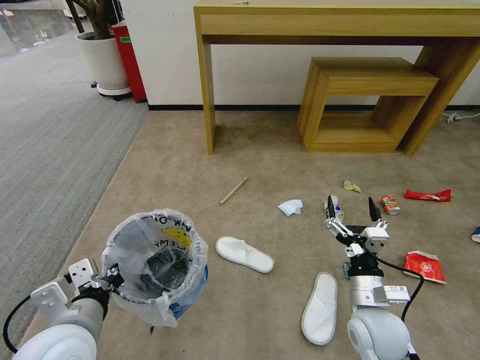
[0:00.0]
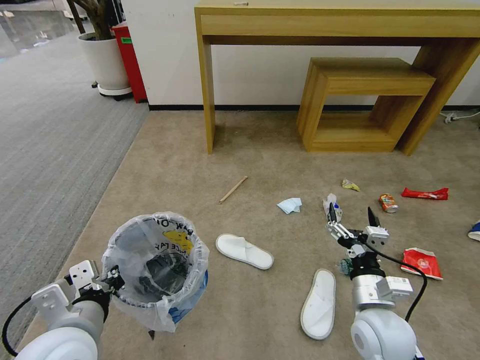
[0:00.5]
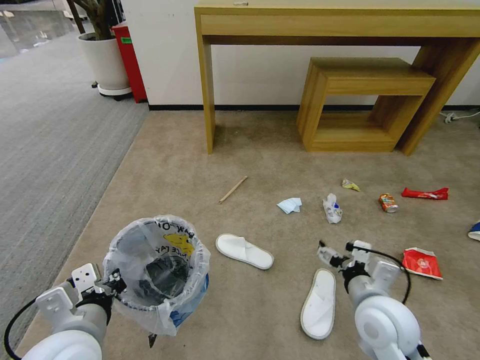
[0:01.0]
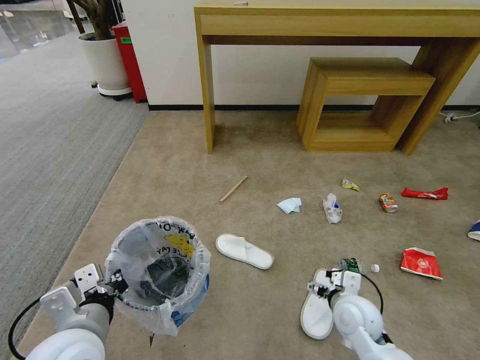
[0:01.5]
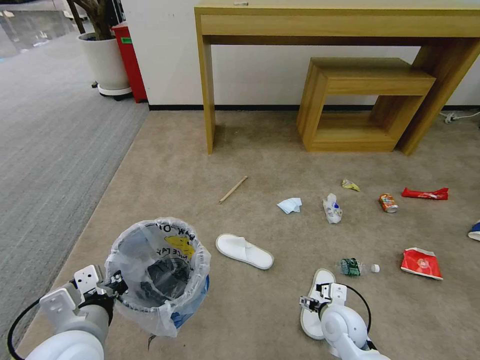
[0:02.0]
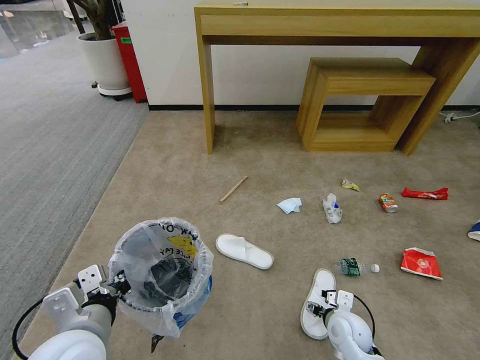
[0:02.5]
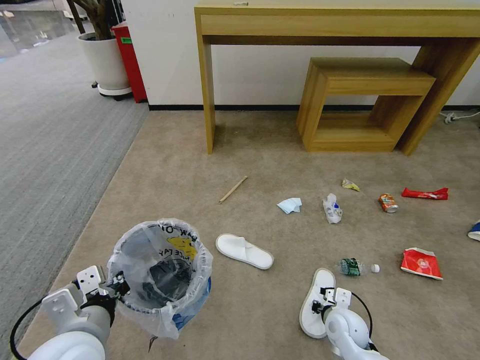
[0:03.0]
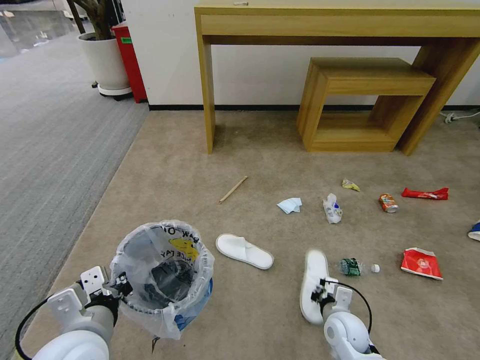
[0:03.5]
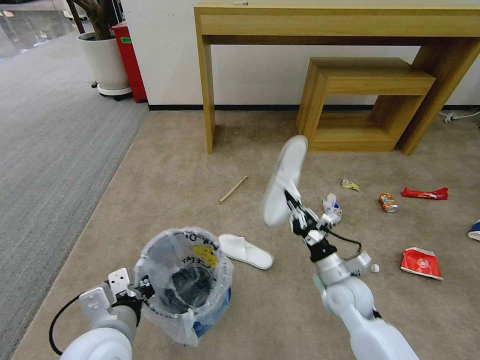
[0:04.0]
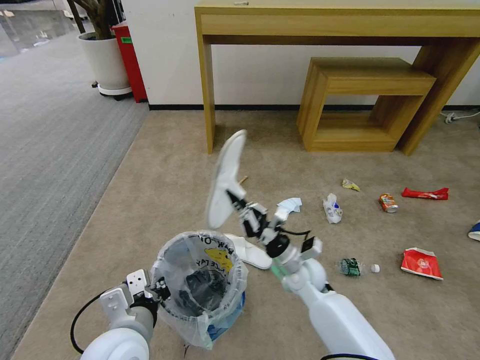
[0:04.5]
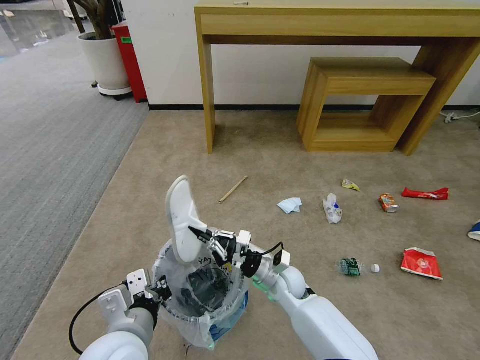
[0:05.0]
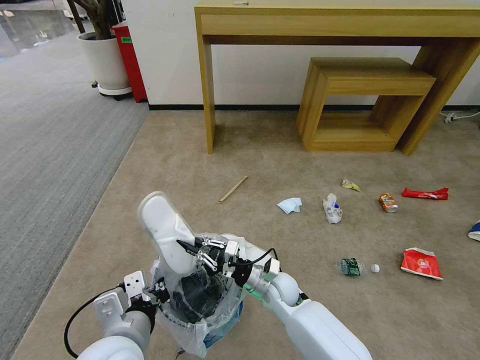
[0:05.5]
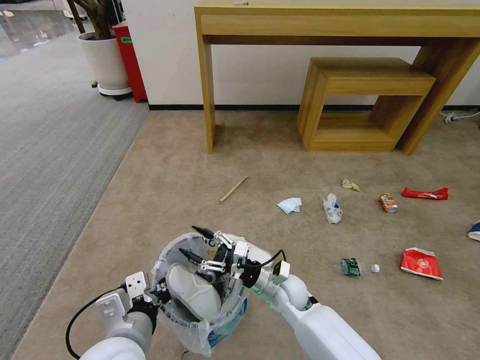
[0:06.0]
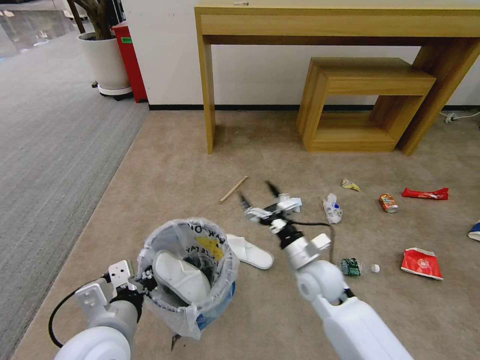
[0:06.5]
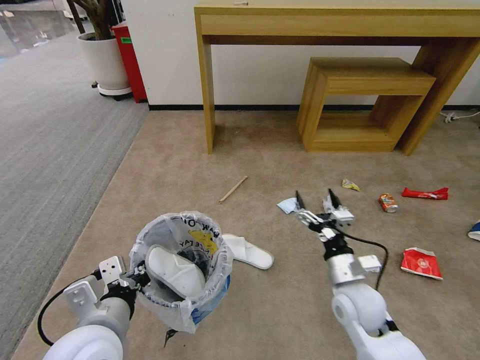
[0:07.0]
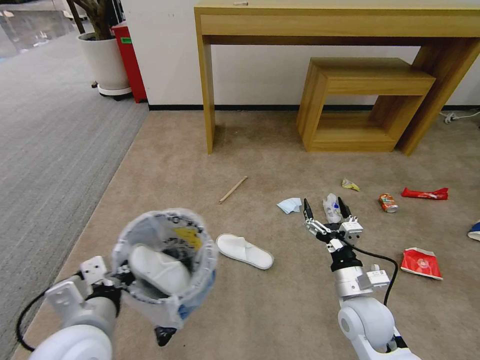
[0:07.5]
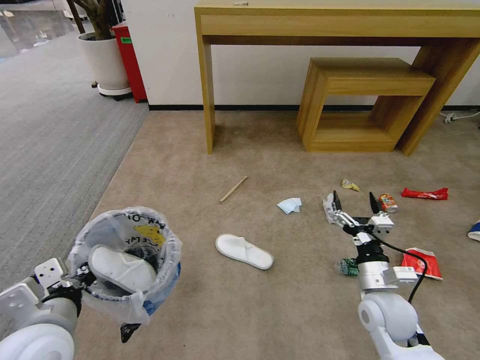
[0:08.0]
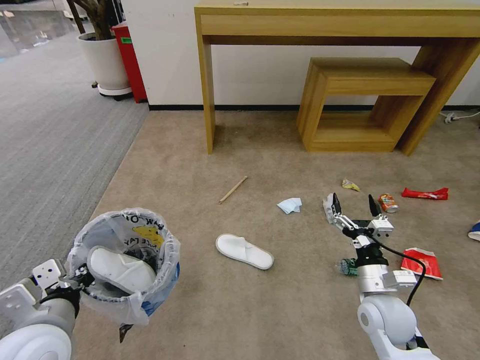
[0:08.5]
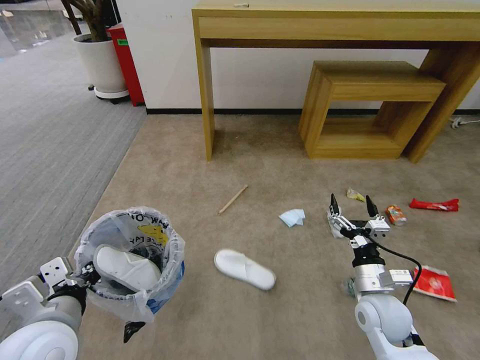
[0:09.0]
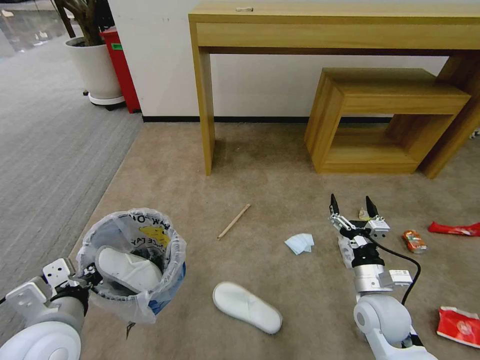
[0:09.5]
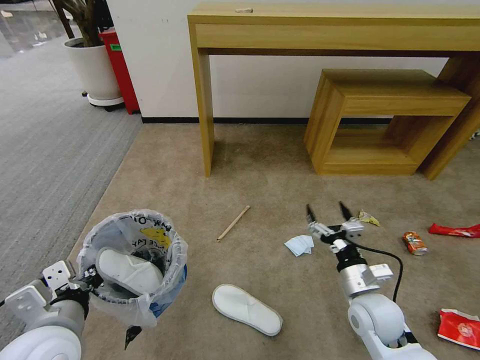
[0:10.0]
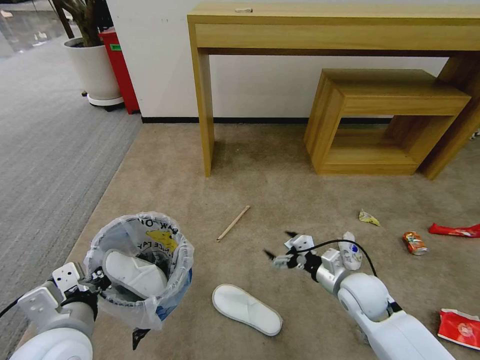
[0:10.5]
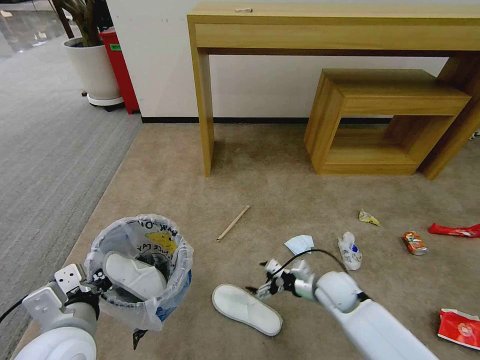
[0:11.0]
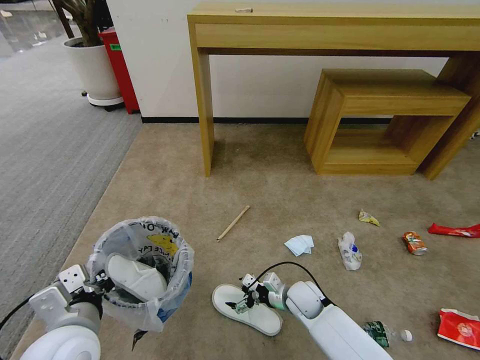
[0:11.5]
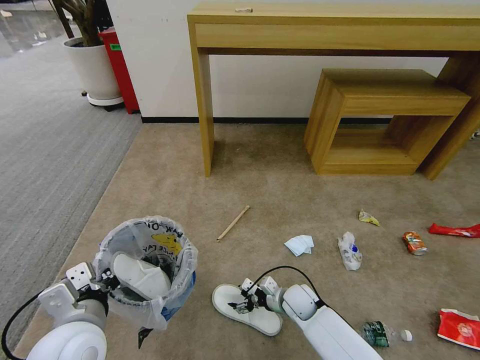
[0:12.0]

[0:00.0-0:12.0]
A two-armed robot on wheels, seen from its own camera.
Task of the whole recording: Pick up the trash bin and place the garbage on the floor into it.
0:00.0 to 0:02.0: The right gripper goes roughly 10 cm downward.
0:02.0 to 0:04.0: The right gripper is displaced upward by roughly 5 cm, and closes its fingers.
0:04.0 to 0:06.0: The right gripper heads to the left, covering some 15 cm, and opens up.
0:06.0 to 0:08.0: The left gripper heads to the left, covering approximately 10 cm. Meanwhile the right gripper moves to the right, upward and backward, about 20 cm.
0:10.0 to 0:12.0: The right gripper travels downward, to the left and forward by some 20 cm.

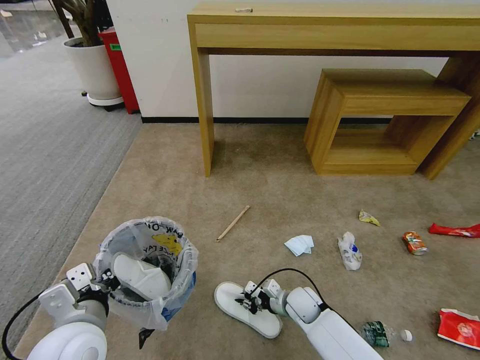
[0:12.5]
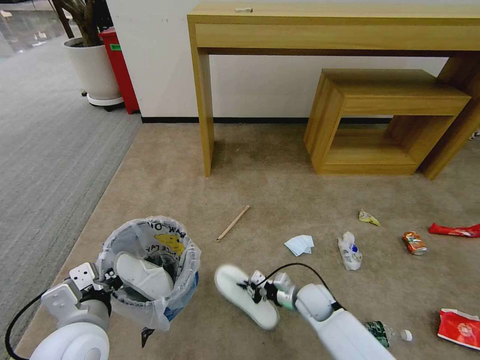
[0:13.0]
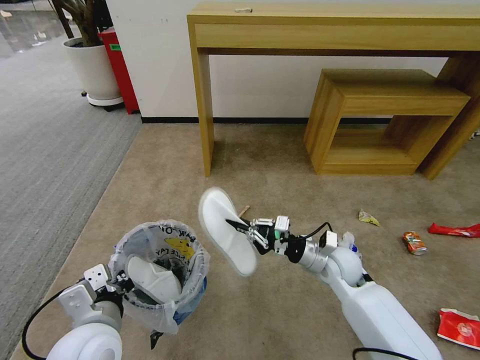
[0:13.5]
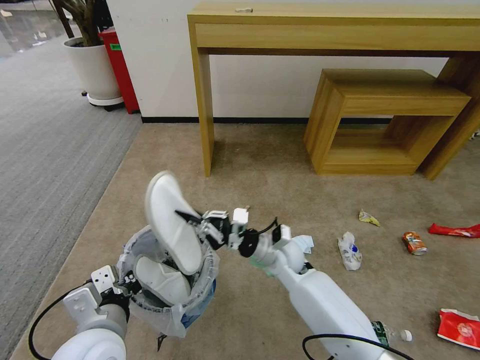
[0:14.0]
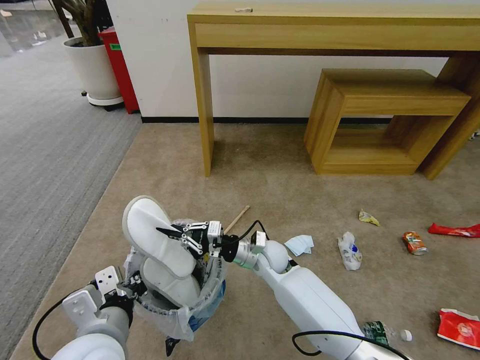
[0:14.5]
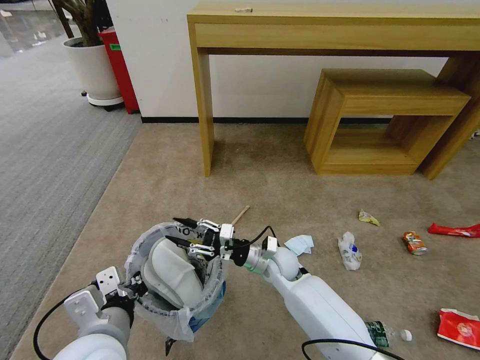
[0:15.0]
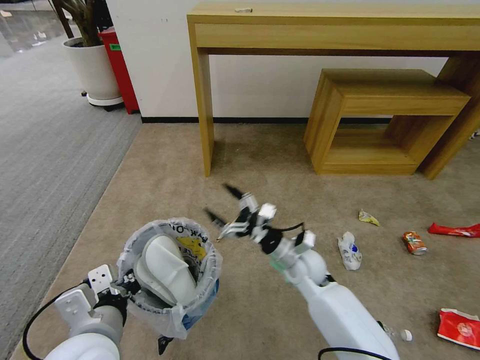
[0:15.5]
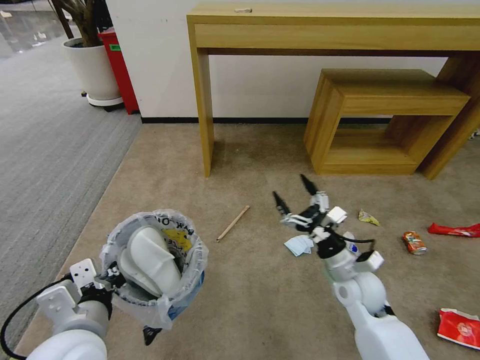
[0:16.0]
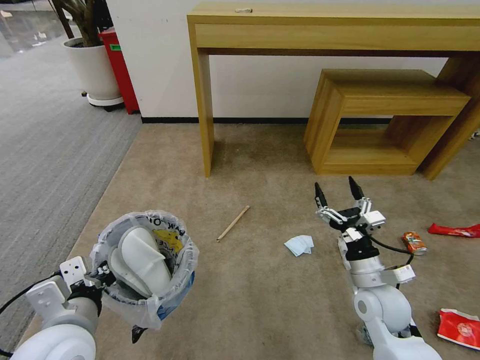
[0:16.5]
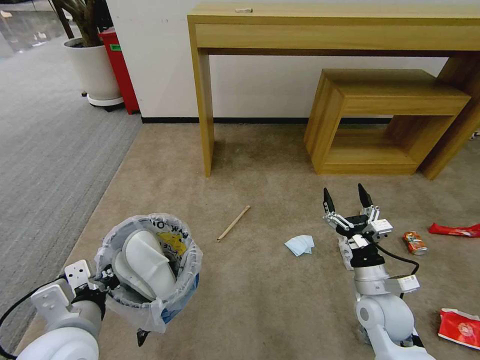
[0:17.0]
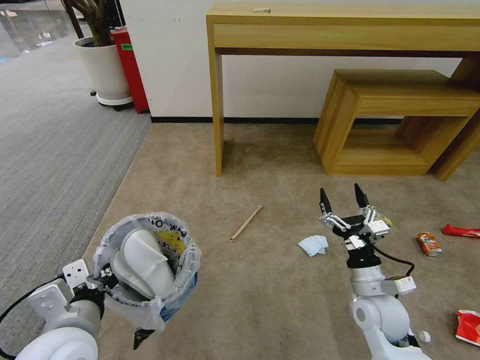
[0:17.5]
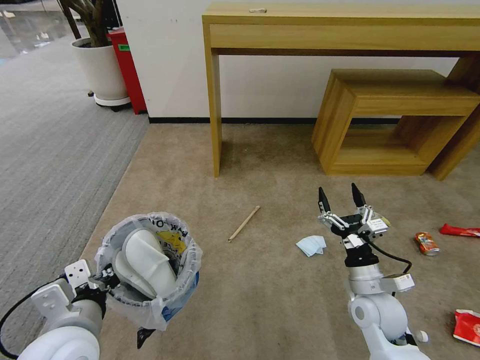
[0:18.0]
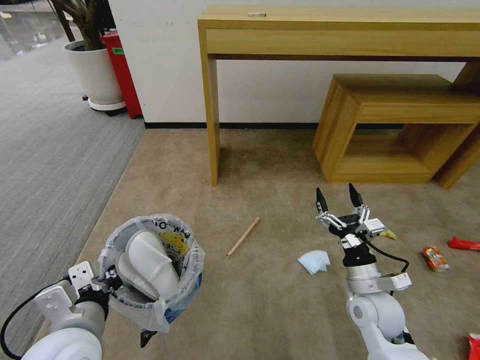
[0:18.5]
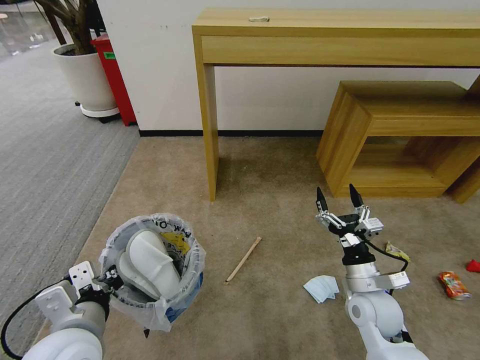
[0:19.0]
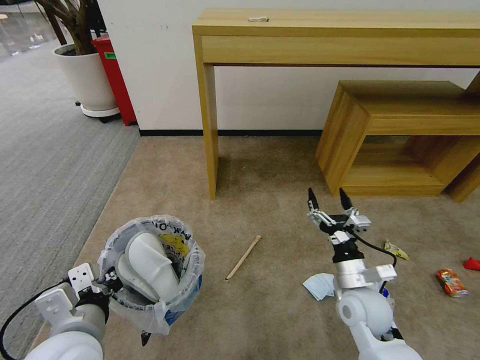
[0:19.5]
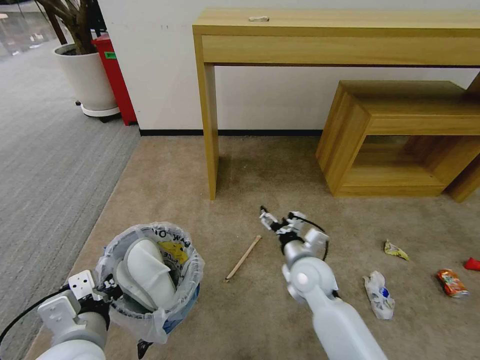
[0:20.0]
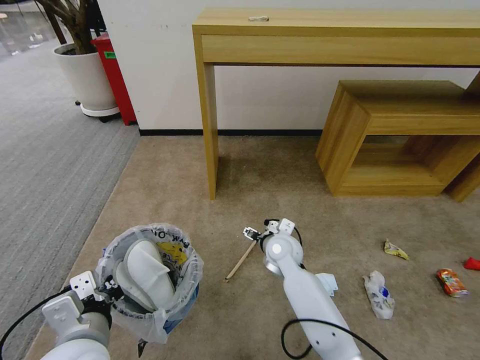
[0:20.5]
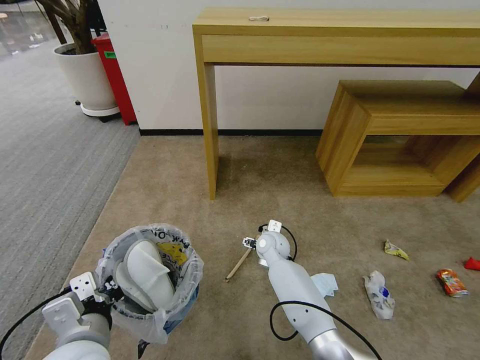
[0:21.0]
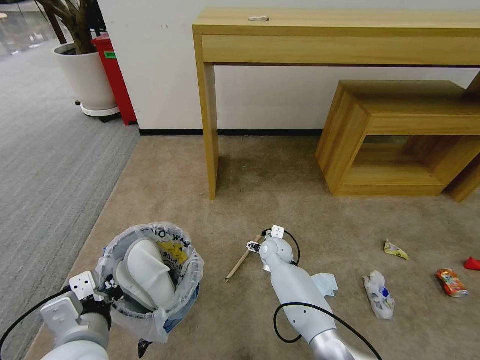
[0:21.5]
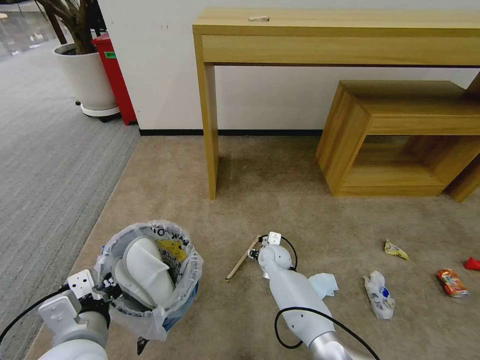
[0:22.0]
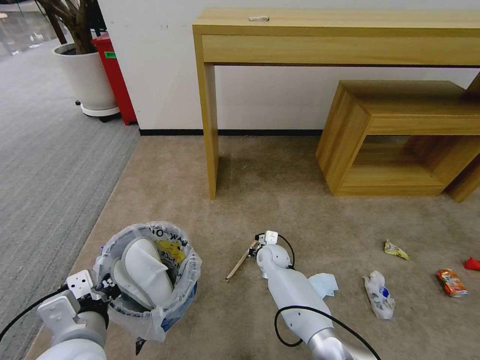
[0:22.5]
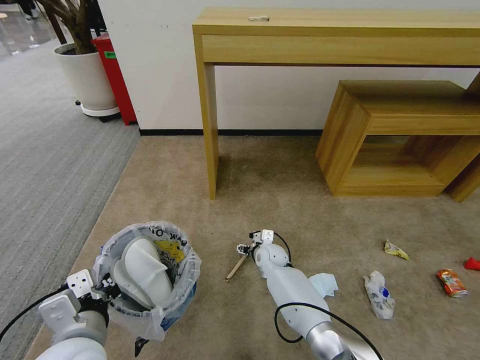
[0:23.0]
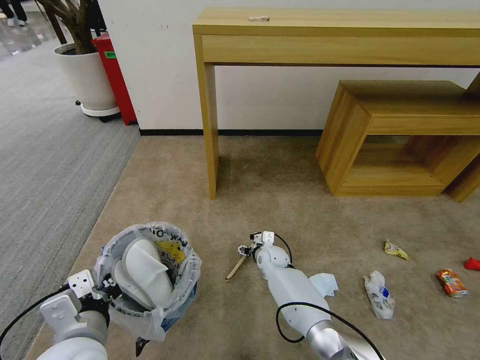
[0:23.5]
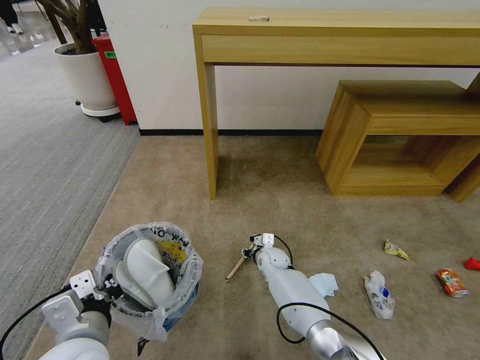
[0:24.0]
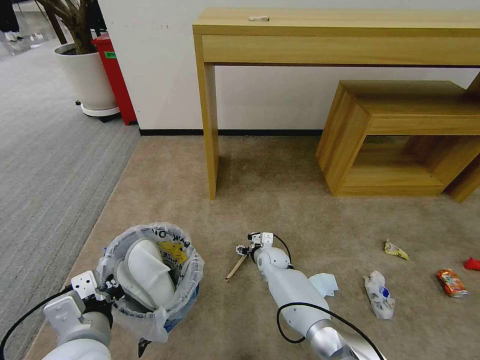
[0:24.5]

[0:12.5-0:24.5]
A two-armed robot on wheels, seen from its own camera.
Task of the whole recording: Pick up the trash bin and place the garbage on the floor into it.
0:12.5 to 0:14.5: The right gripper travels upward, to the left and forward by some 20 cm.
0:14.5 to 0:16.5: The right gripper heads to the right and backward, covering some 25 cm, and opens up.
0:18.5 to 0:20.5: The right gripper moves to the left and forward, roughly 25 cm.
0:20.5 to 0:22.5: The right gripper goes roughly 10 cm downward, and closes its fingers.
0:22.5 to 0:24.5: The right gripper opens up.

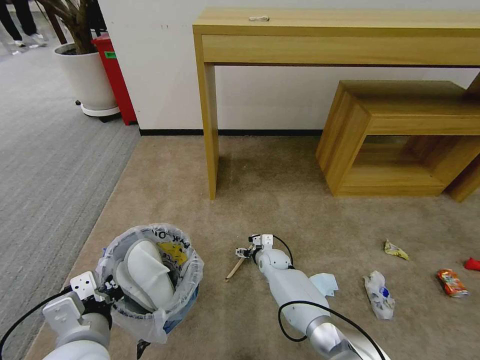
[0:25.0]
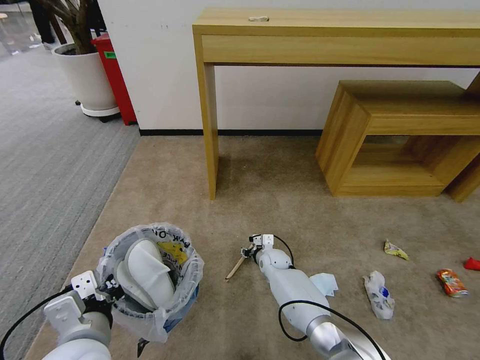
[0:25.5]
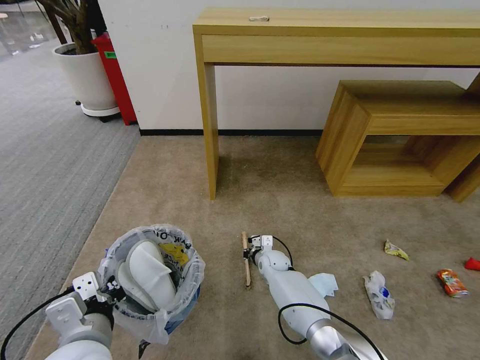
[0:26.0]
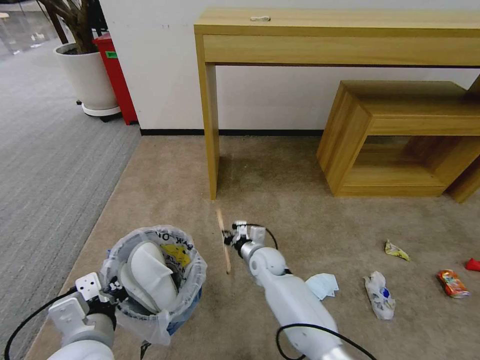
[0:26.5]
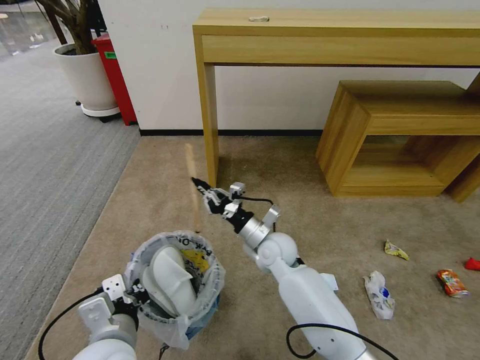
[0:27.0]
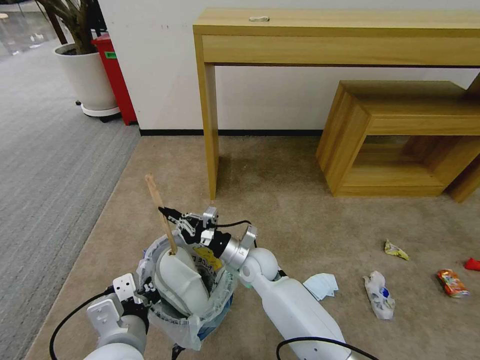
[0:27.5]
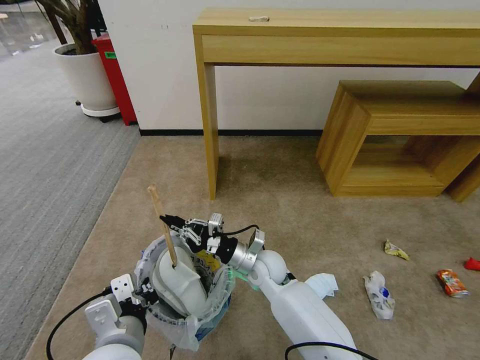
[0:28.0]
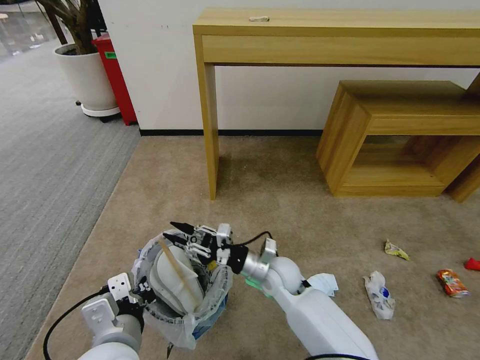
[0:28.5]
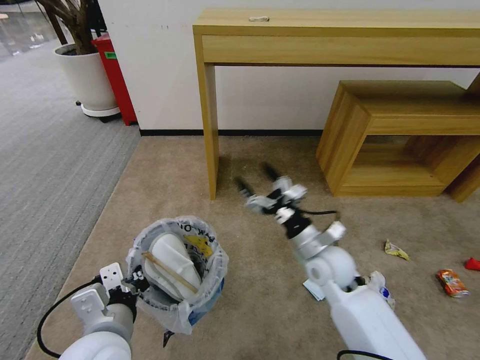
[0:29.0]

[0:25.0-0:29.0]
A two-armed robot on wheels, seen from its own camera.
Task of the whole recording: Pick up the trash bin and place the garbage on the floor into it.
0:25.0 to 0:27.0: The right gripper shifts approximately 20 cm upward, and closes.
0:27.0 to 0:29.0: The right gripper shifts about 10 cm to the right and backward, and opens its fingers.
